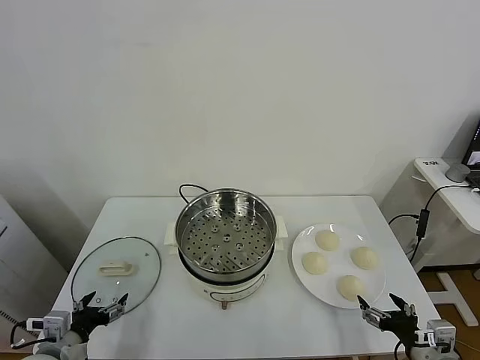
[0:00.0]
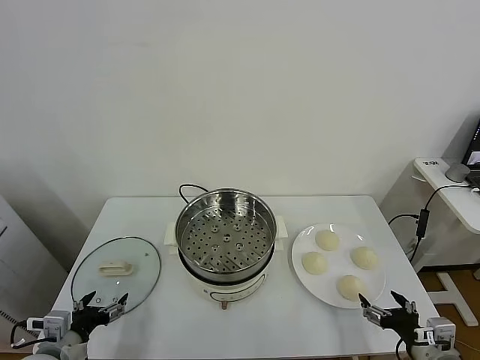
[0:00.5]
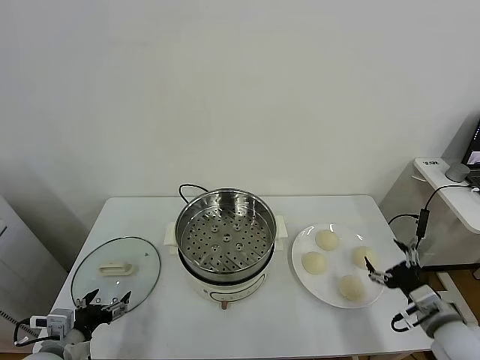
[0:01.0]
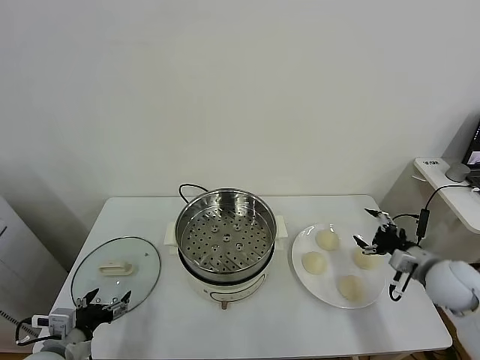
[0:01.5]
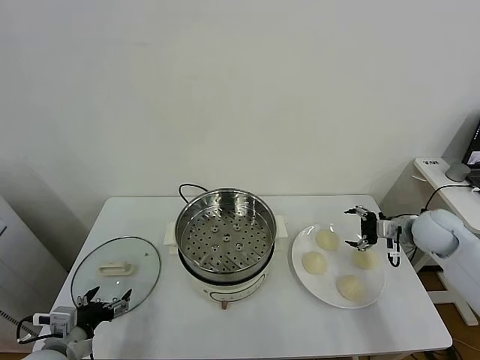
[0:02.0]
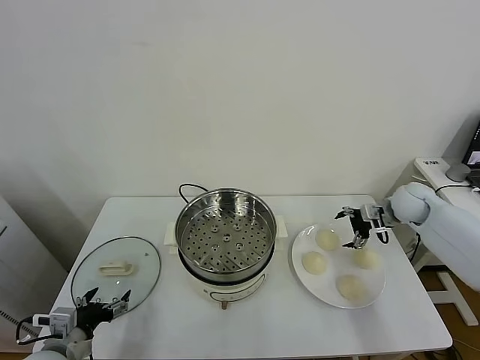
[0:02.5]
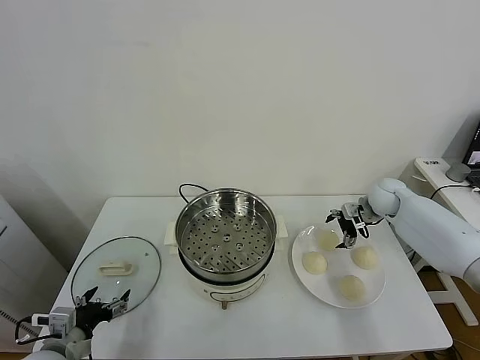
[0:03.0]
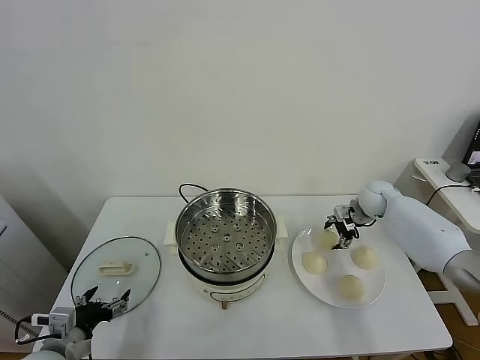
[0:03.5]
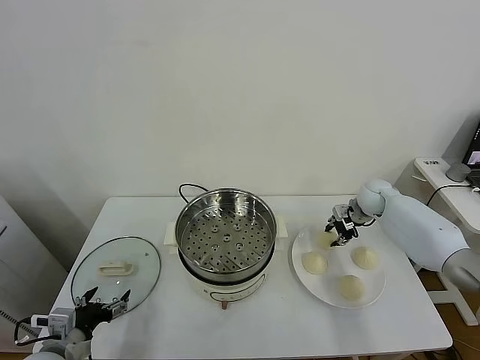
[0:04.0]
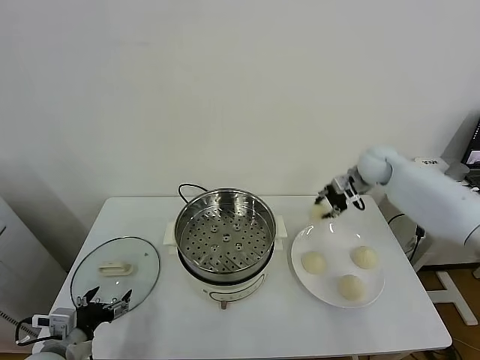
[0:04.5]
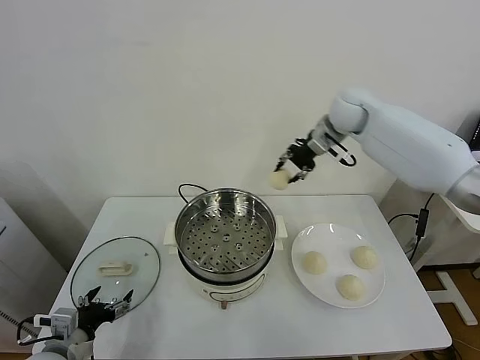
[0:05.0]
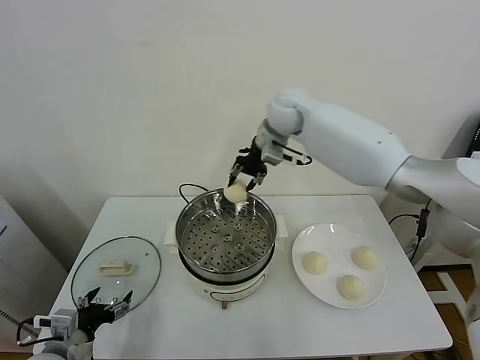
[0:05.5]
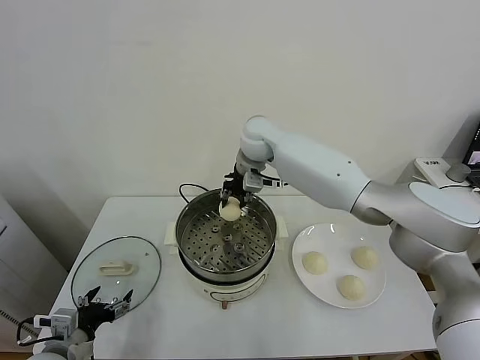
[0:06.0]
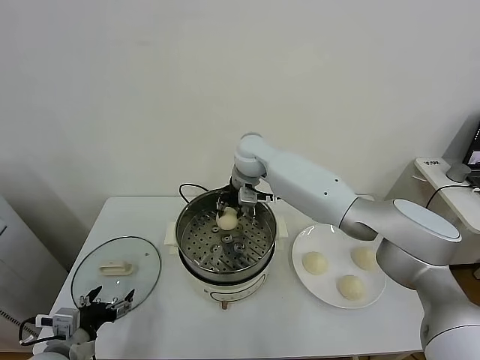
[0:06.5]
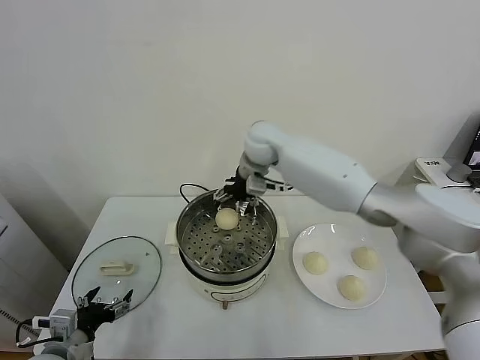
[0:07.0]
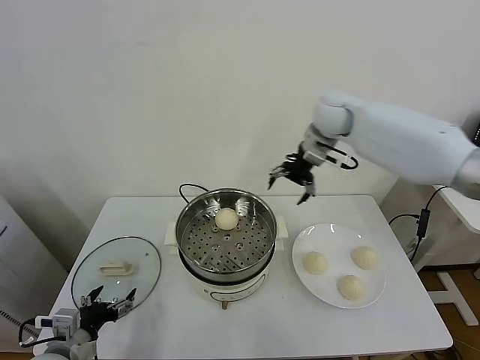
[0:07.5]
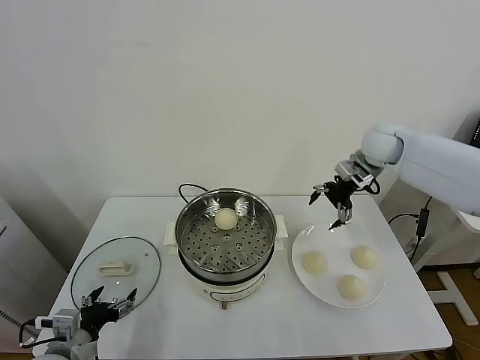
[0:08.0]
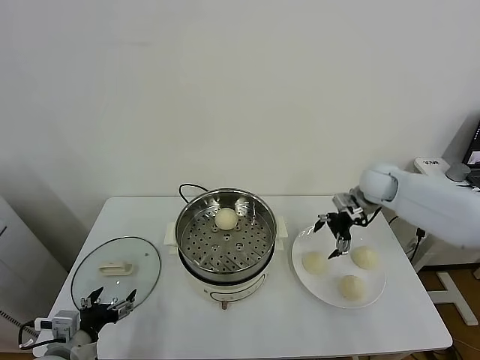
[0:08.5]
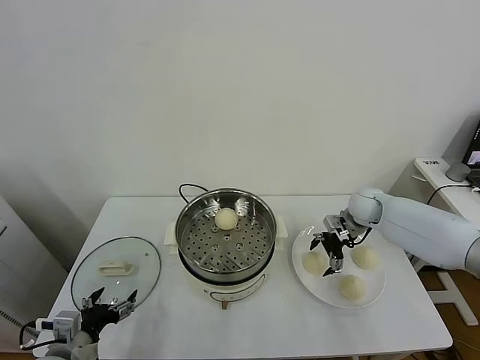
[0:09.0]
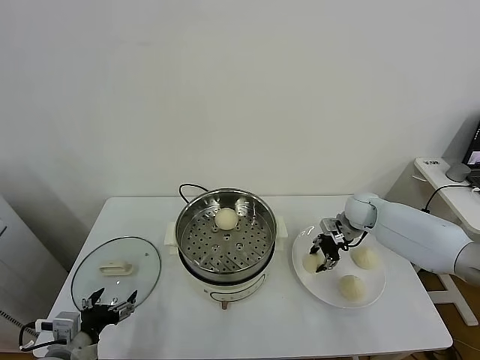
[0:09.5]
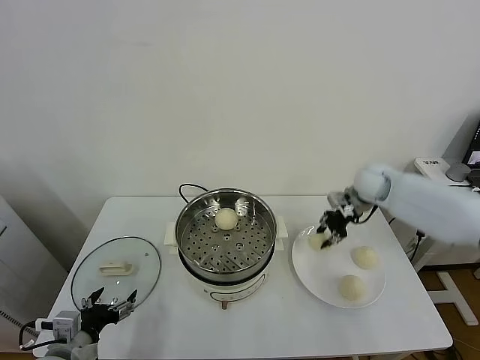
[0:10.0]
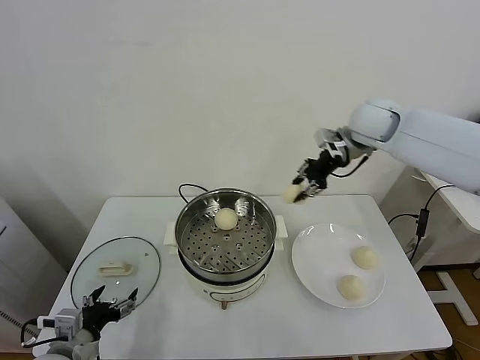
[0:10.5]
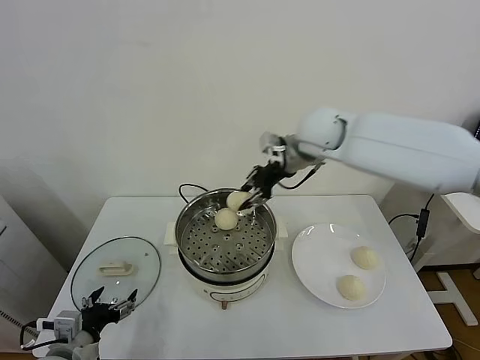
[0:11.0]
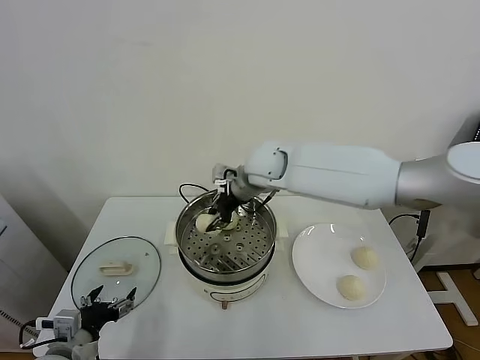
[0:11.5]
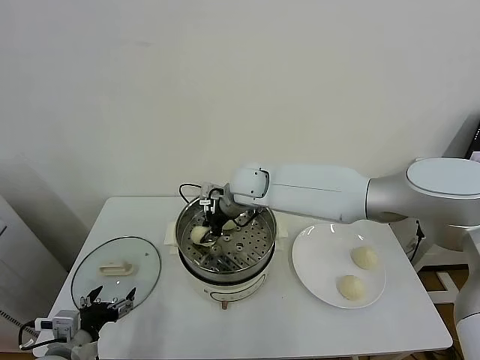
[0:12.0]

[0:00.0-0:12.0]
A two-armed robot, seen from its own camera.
Task of the whole recording: take steamed baozi put them in steamer.
Step, 0:00.0 to 0:03.5: Grasp the baozi in the plate with right gripper.
Step, 0:04.0 to 0:06.5: Place the baozi on the steamer with right gripper.
Step, 0:07.0 to 0:09.5: Grasp the baozi in the plate with right gripper.
0:02.0 to 0:04.0: The right gripper goes roughly 15 cm forward and to the left, and closes its fingers.
0:04.0 to 0:06.0: The right gripper moves to the left and upward, about 35 cm.
0:06.0 to 0:08.0: The right gripper shifts approximately 30 cm to the right, and opens its fingers.
0:08.0 to 0:10.0: The right gripper goes downward and returns, some 20 cm each way, and closes.
0:10.0 to 0:12.0: The right gripper shifts roughly 30 cm to the left.

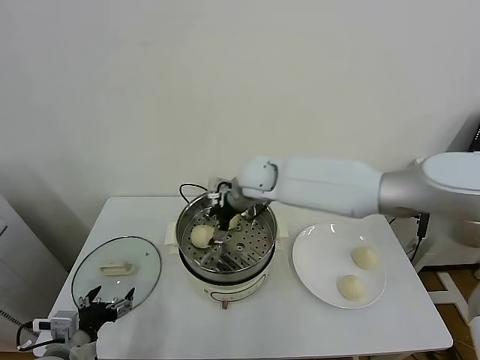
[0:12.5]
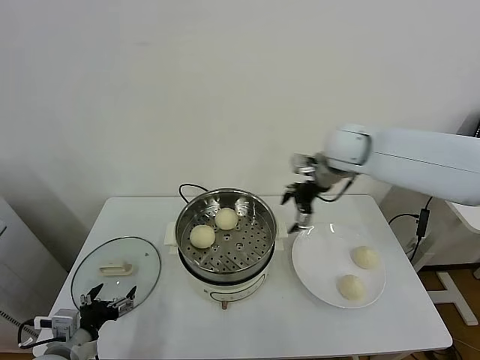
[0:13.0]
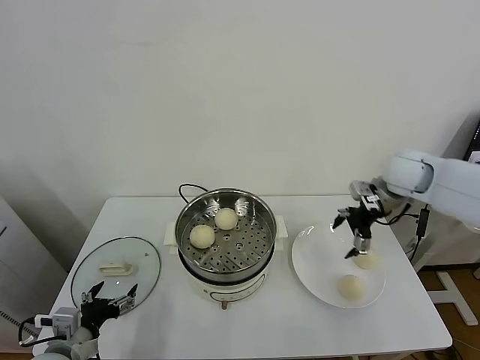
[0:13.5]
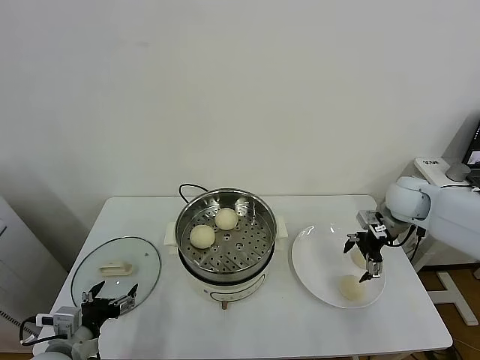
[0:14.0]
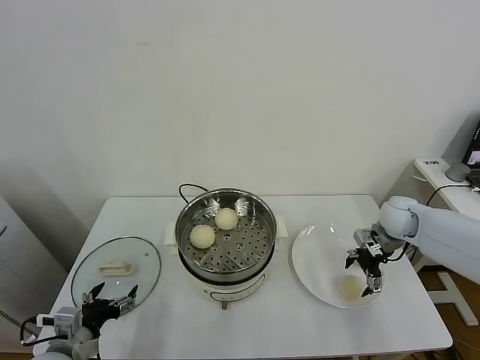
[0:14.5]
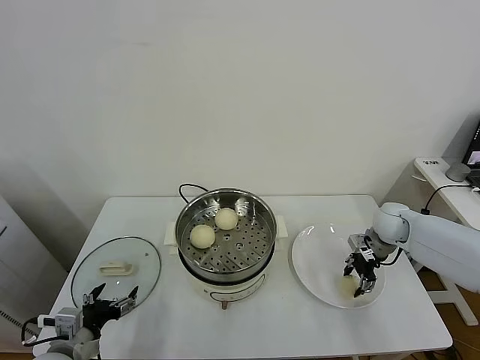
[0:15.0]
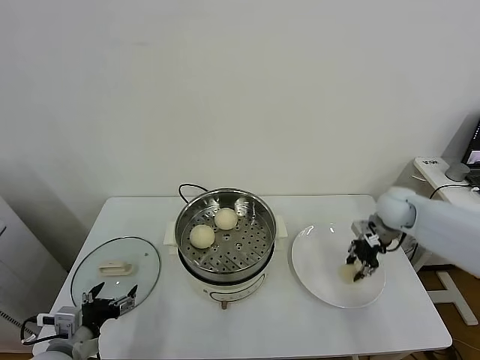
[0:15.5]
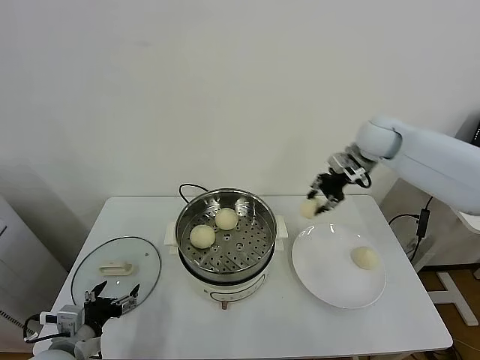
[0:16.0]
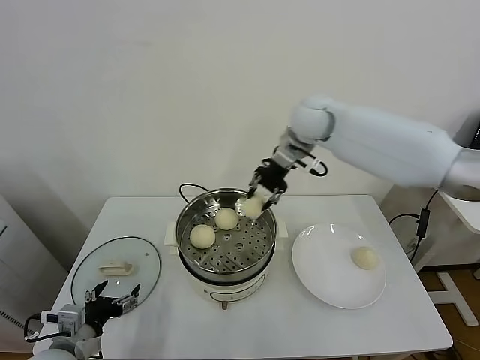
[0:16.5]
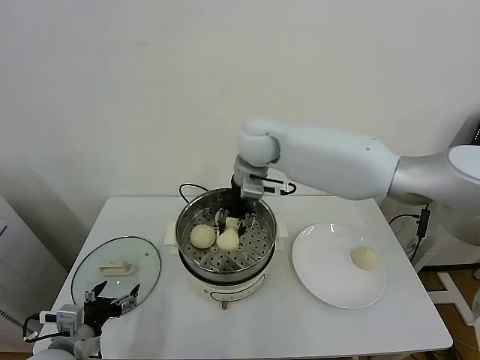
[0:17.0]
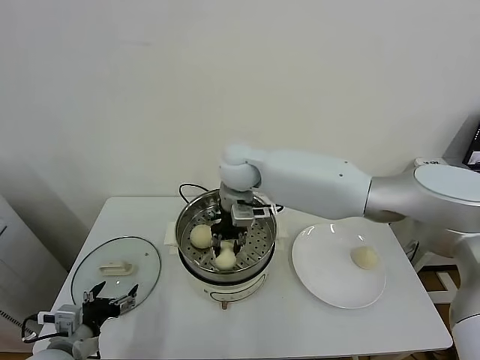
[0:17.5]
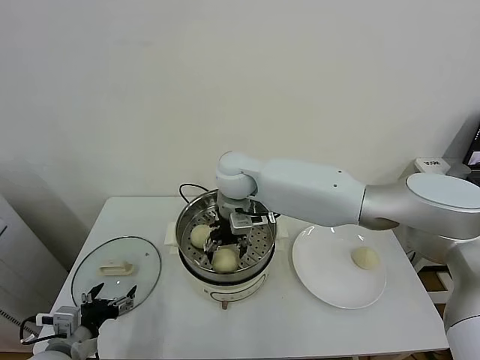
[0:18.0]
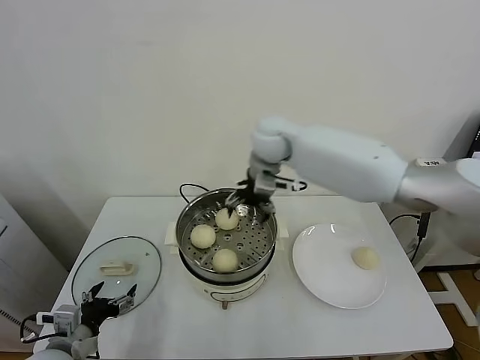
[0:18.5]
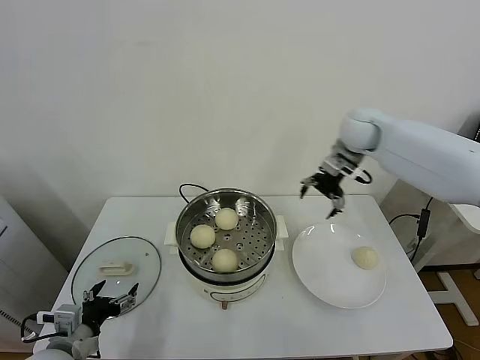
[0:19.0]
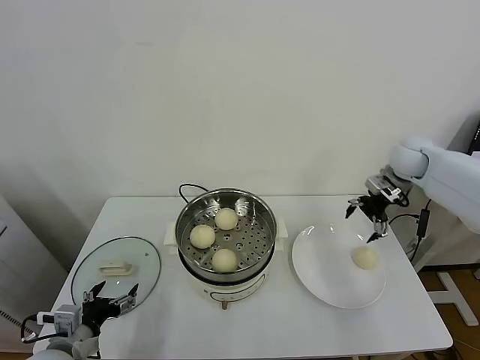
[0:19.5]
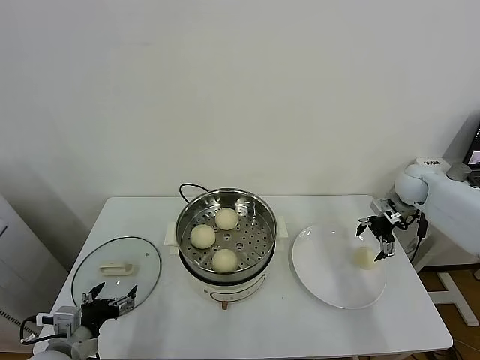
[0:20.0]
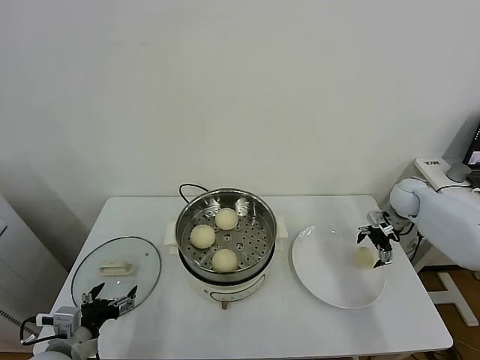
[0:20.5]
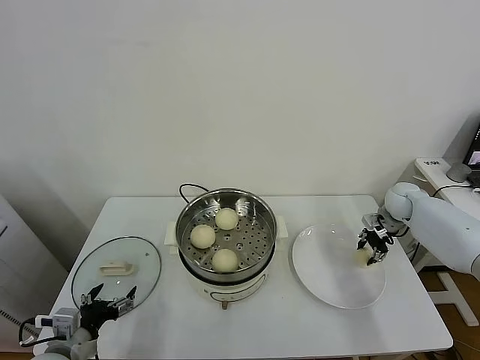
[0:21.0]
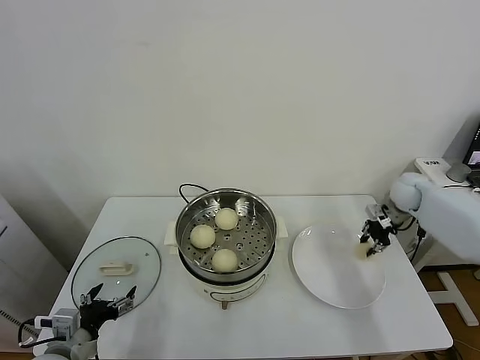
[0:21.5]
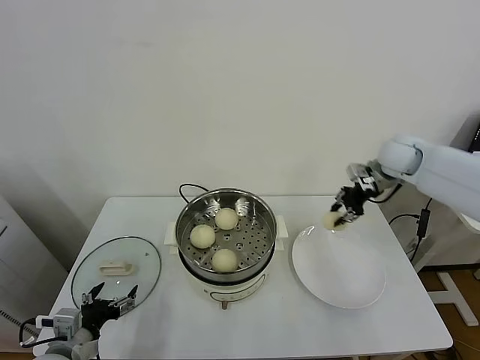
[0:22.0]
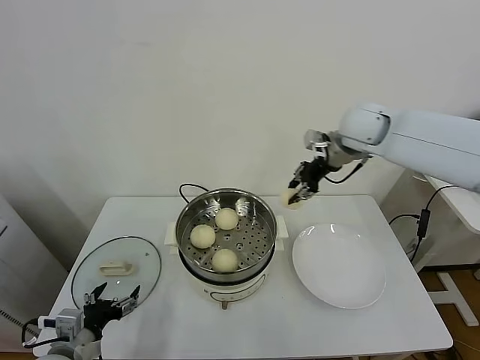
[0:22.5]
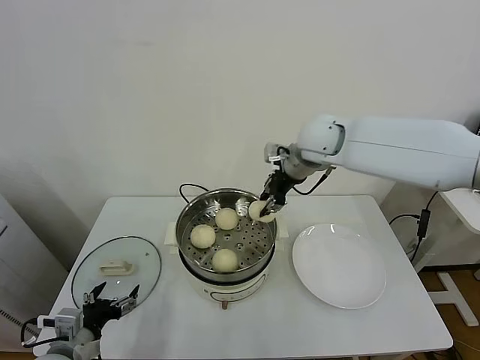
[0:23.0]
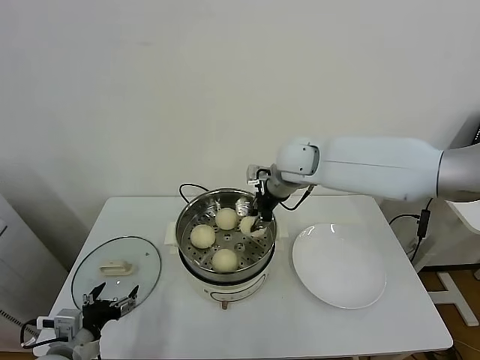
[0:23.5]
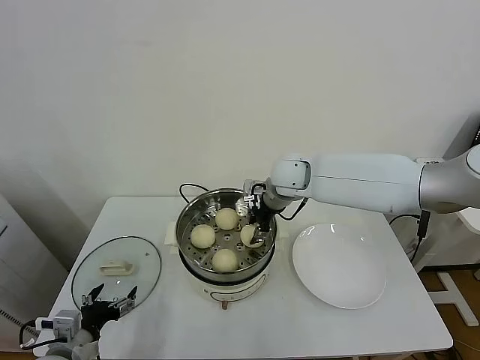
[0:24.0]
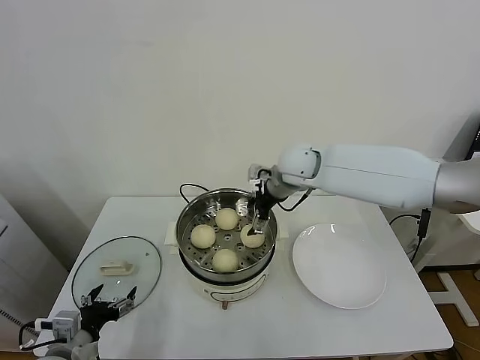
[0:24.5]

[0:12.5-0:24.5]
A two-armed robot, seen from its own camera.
Task of the whole recording: take steamed baozi put them in steamer.
Step, 0:13.0 to 0:15.0: Grasp the baozi in the plate with right gripper.
Step, 0:15.5 to 0:18.0: Place the baozi on the steamer with right gripper.
Step, 0:18.5 to 0:21.0: Grasp the baozi in the plate with right gripper.
Step, 0:21.5 to 0:24.5: Place the baozi on the steamer with right gripper.
0:12.5 to 0:14.5: The right gripper travels to the right by about 35 cm.
0:14.5 to 0:16.5: The right gripper heads to the left and upward, covering some 35 cm, and closes up.
0:16.5 to 0:18.5: The right gripper moves roughly 15 cm to the left and comes back, and opens its fingers.
0:18.5 to 0:20.5: The right gripper moves to the right and downward, some 40 cm.
0:20.5 to 0:22.5: The right gripper moves upward and to the left, some 30 cm, and closes.
0:22.5 to 0:24.5: The right gripper goes roughly 15 cm to the left and downward, and opens.

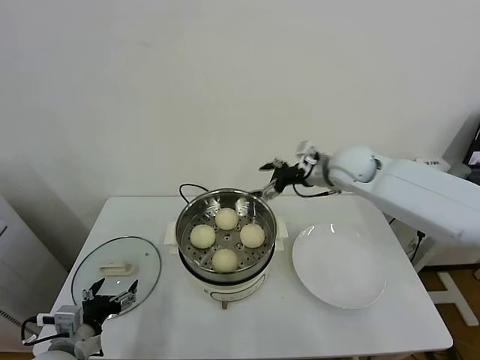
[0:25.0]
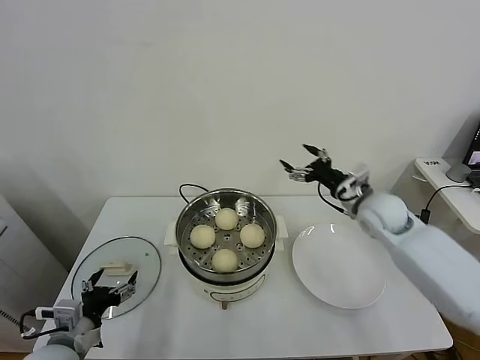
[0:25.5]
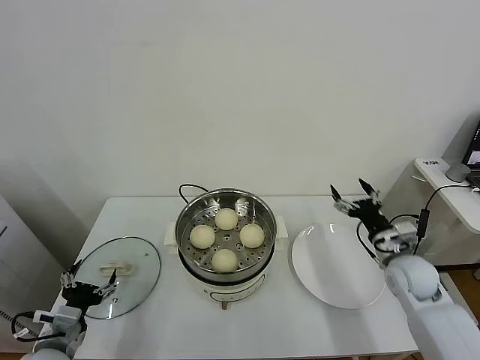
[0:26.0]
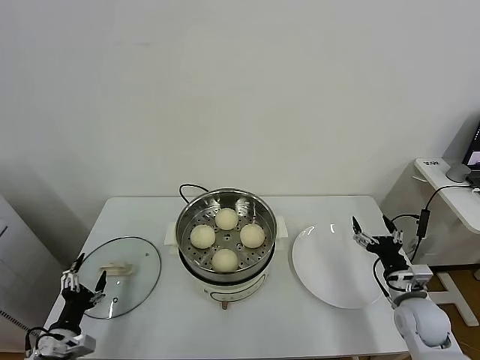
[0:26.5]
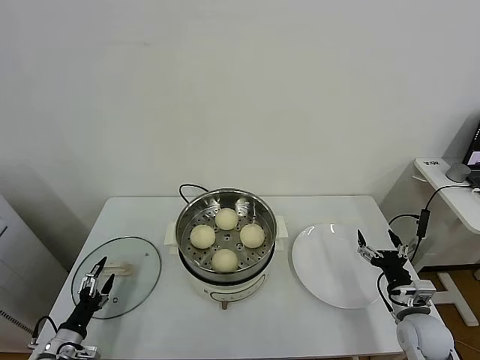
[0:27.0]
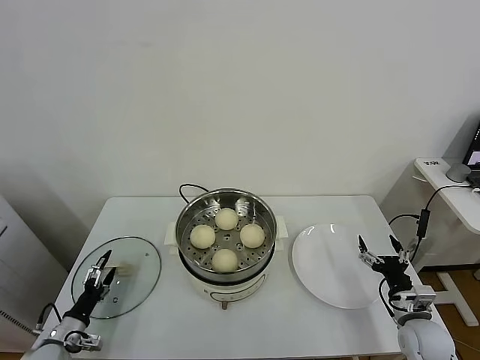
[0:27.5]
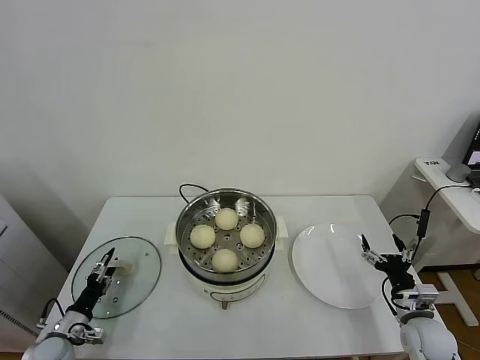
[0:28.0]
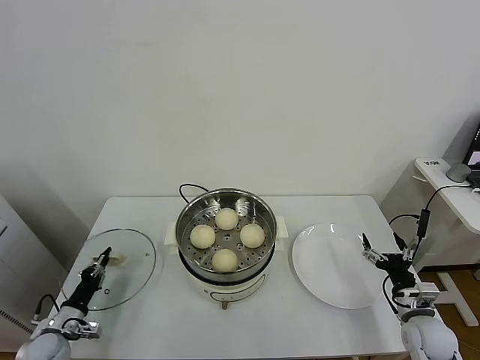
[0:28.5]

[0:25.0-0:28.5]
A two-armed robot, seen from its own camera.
Task of the whole recording: take steamed baozi put them in steamer.
0:25.0 to 0:27.0: The right gripper goes about 40 cm downward, backward and to the right. The left gripper heads downward and to the left, covering about 15 cm.
0:27.0 to 0:28.5: The left gripper travels forward by approximately 5 cm, and closes.
